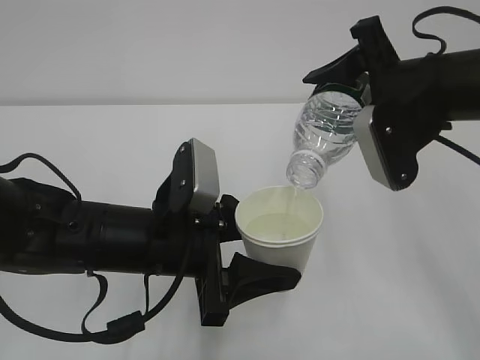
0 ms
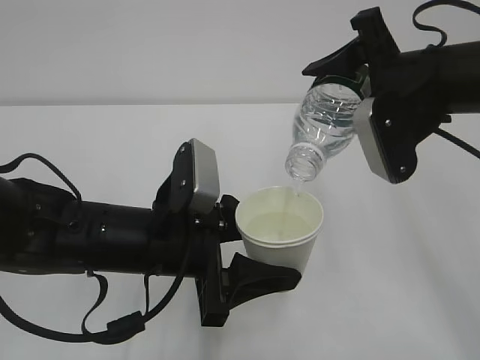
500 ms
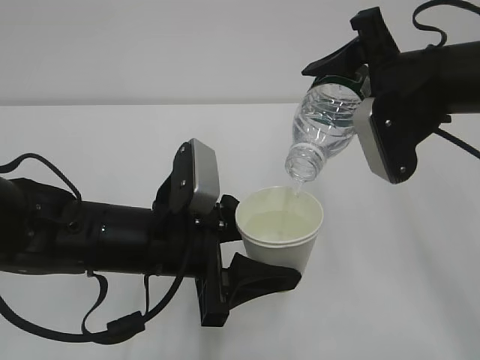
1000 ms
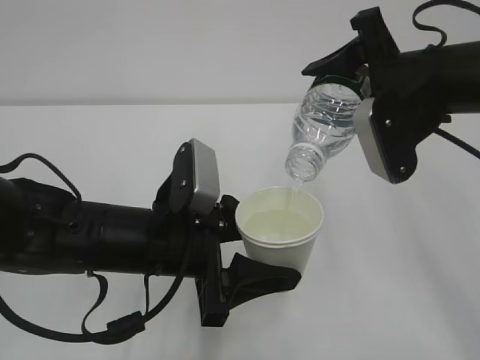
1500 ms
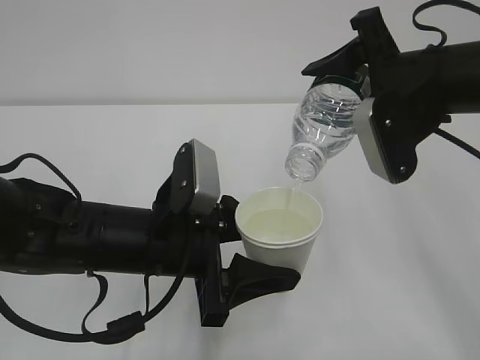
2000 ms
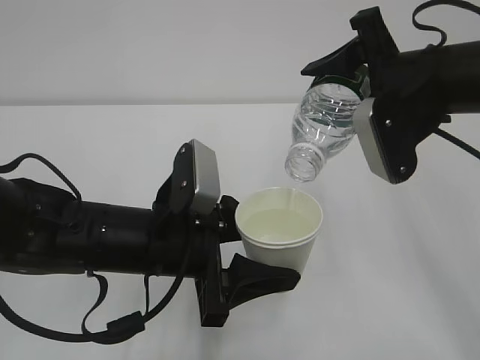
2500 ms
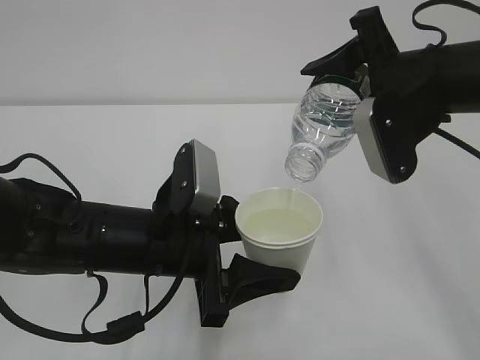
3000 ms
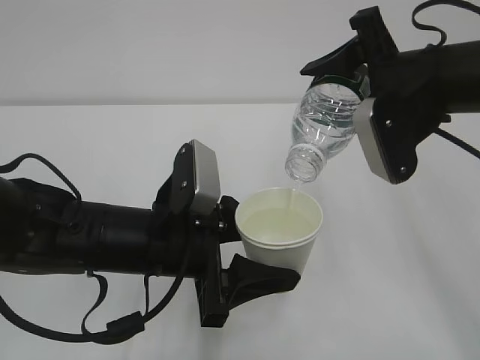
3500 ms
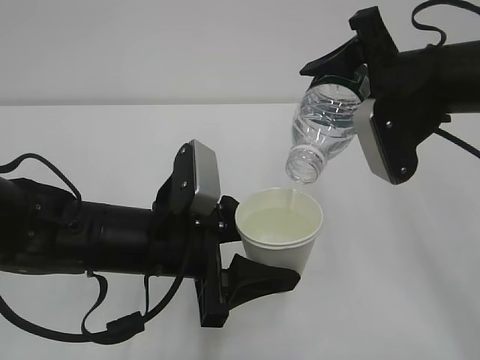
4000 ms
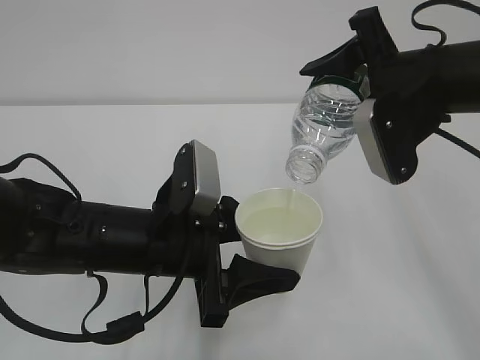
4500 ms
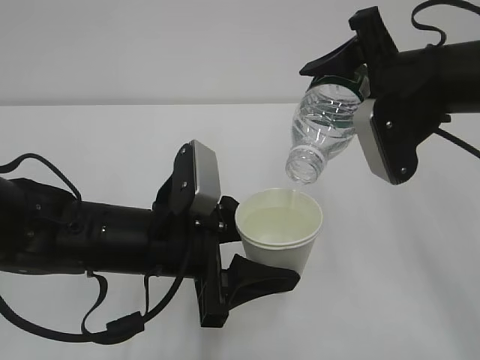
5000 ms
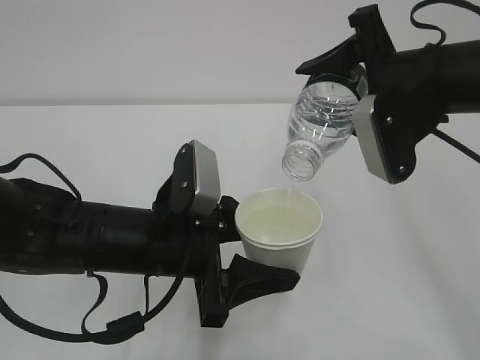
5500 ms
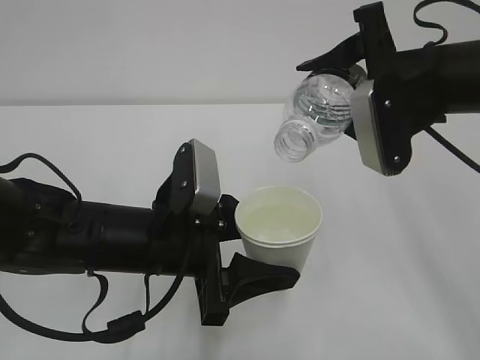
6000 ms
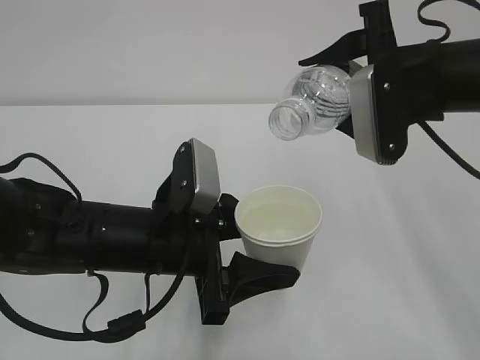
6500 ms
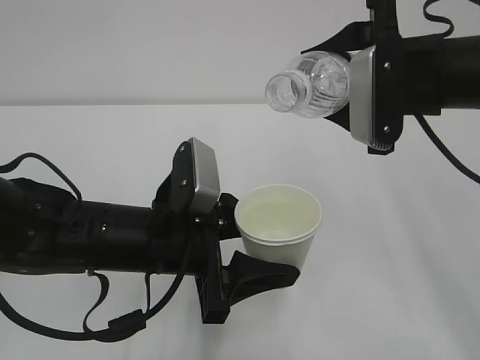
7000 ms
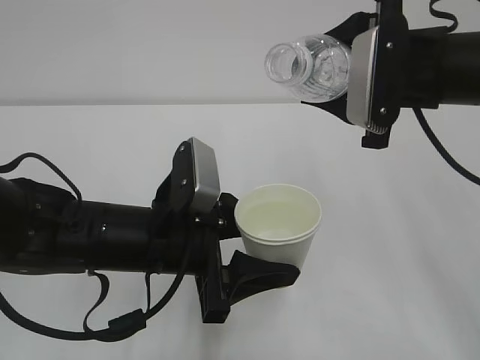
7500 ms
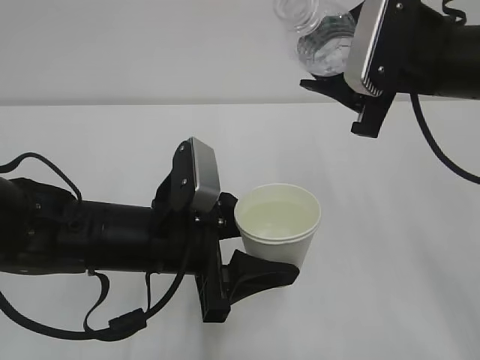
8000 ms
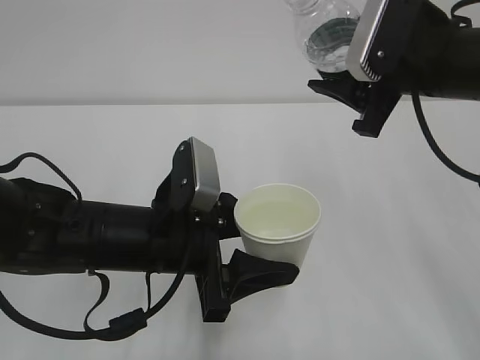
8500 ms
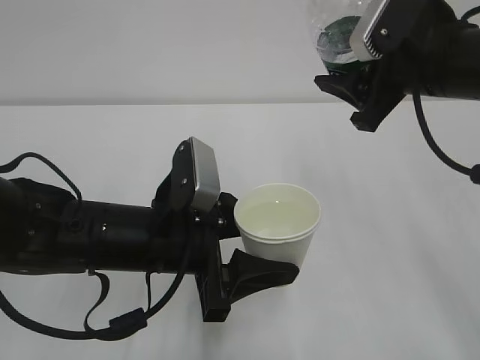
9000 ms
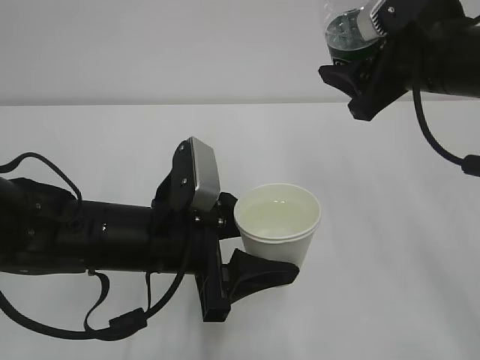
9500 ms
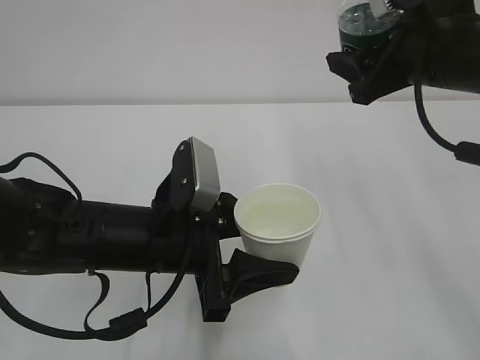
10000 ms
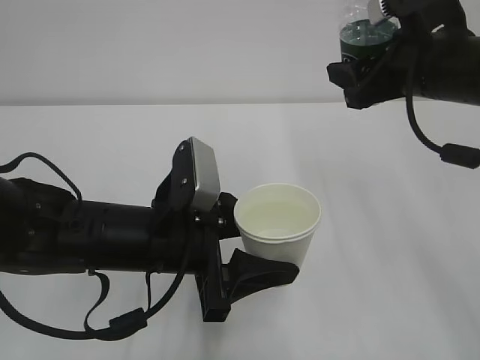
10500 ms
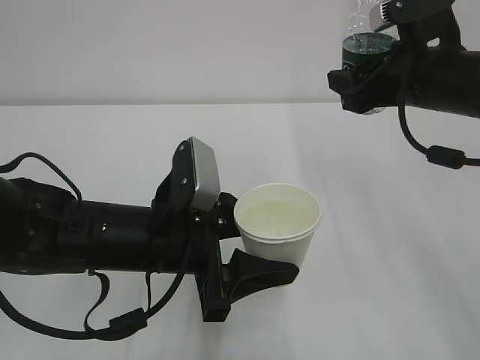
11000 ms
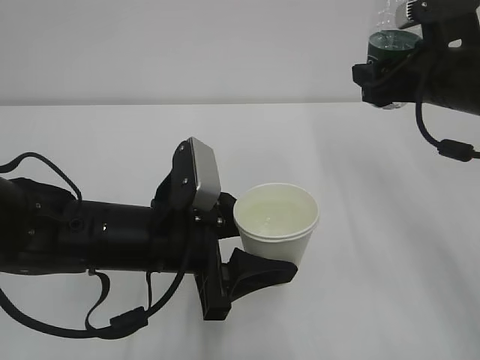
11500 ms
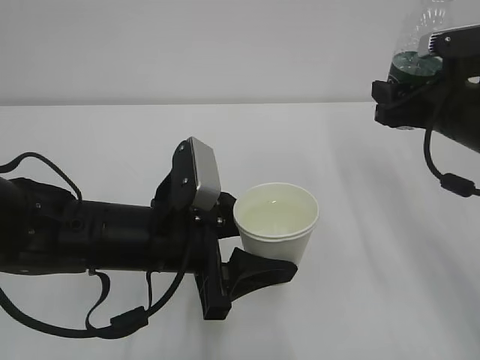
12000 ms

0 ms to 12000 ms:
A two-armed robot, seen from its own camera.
0 ms to 4000 ms: Neither gripper changes place.
4000 ms to 6000 ms: There are only small adjustments of the grippers.
10000 ms to 12000 ms: The right gripper shifts approximately 5 cm downward.

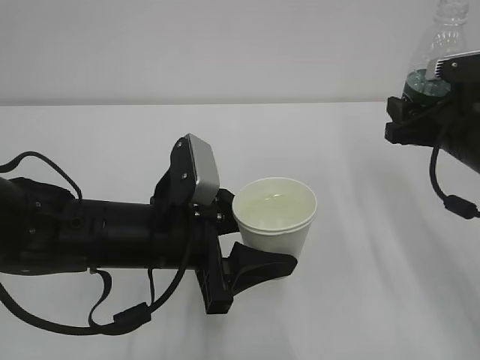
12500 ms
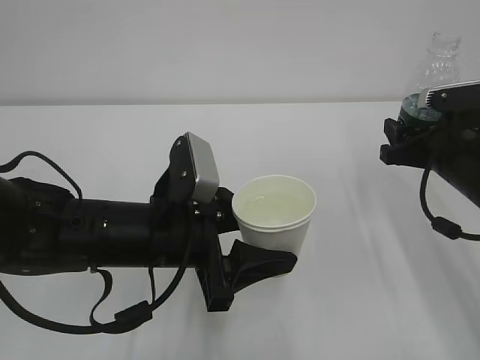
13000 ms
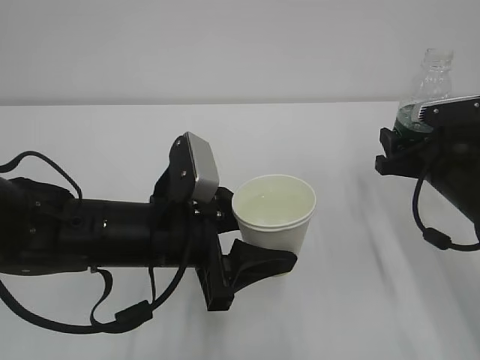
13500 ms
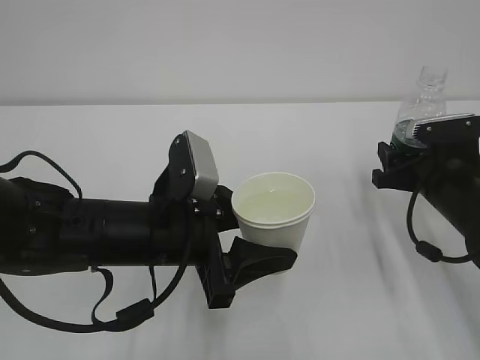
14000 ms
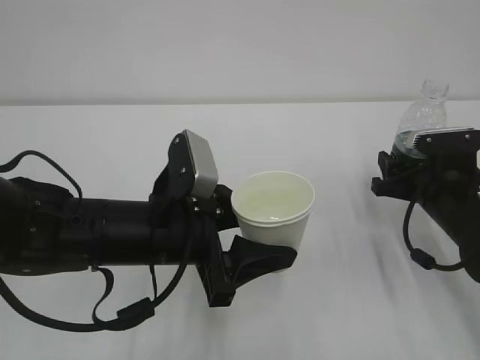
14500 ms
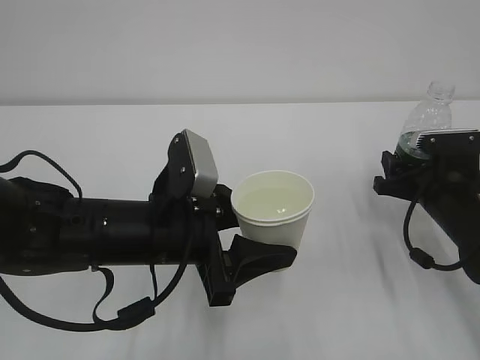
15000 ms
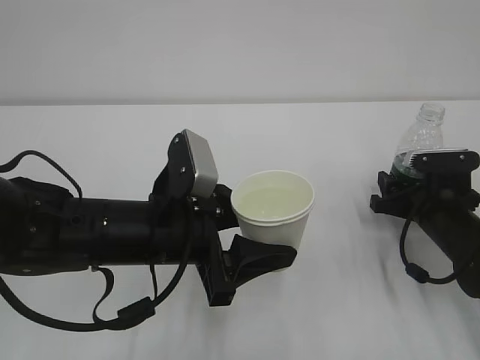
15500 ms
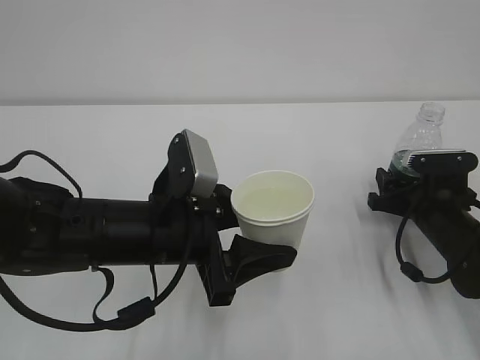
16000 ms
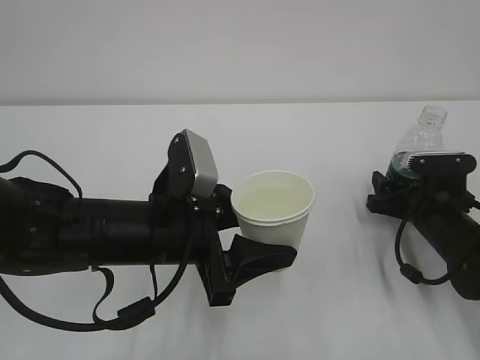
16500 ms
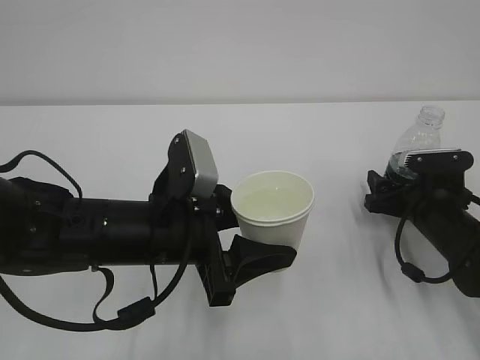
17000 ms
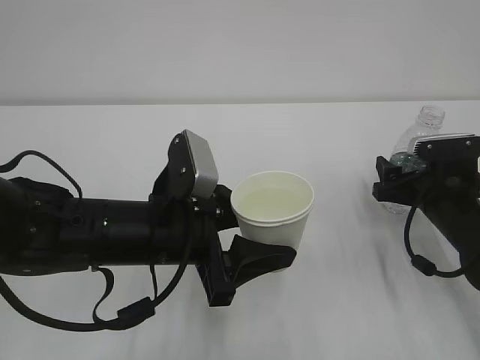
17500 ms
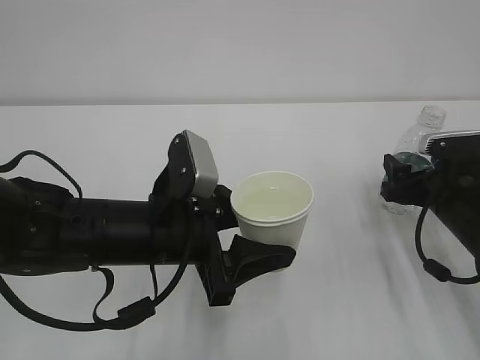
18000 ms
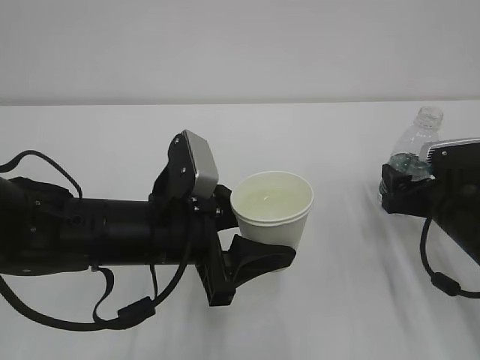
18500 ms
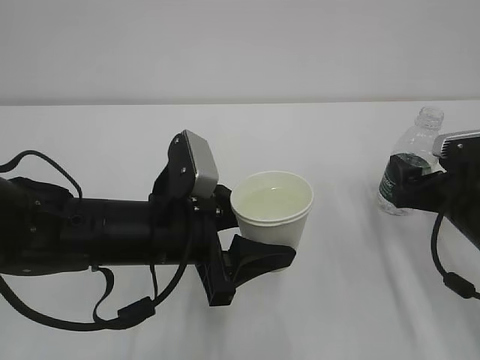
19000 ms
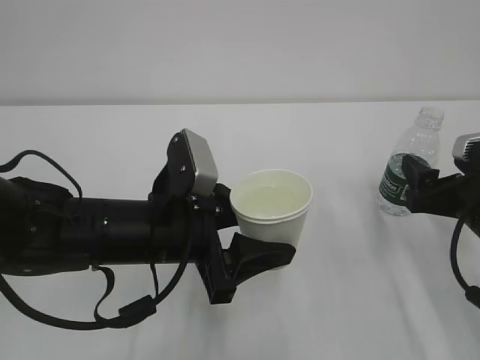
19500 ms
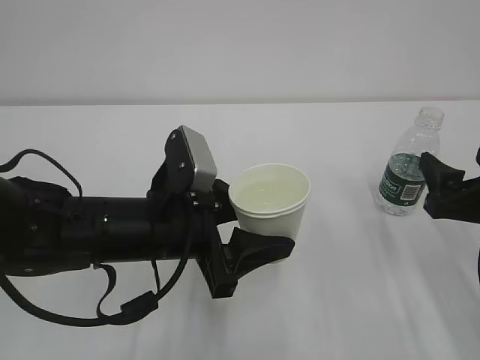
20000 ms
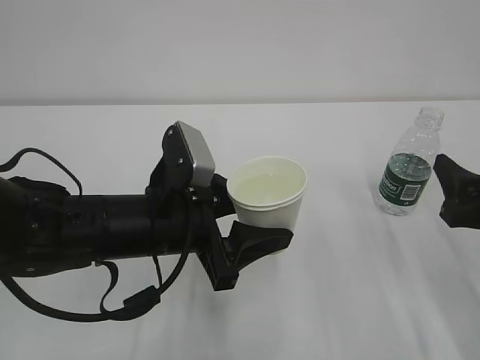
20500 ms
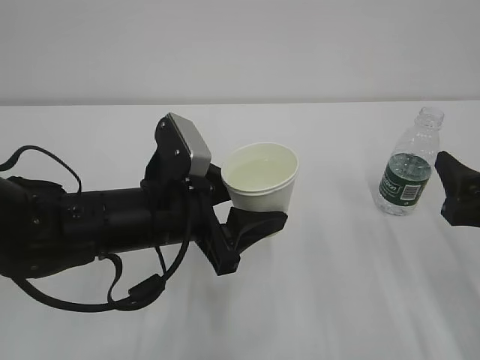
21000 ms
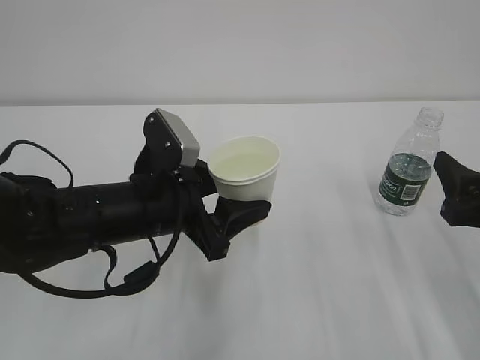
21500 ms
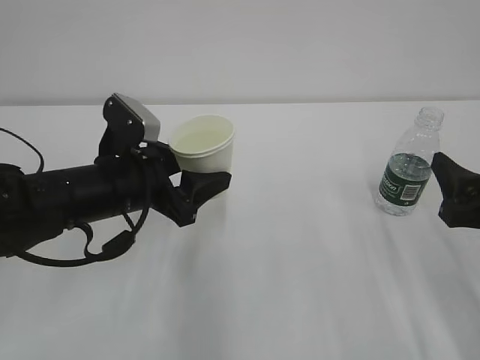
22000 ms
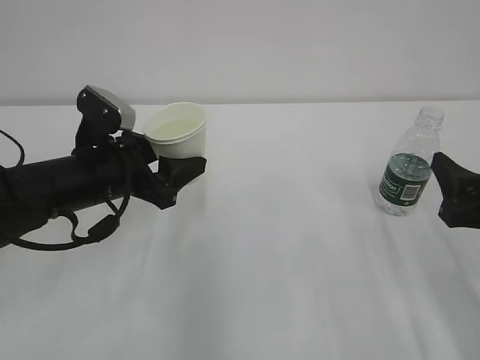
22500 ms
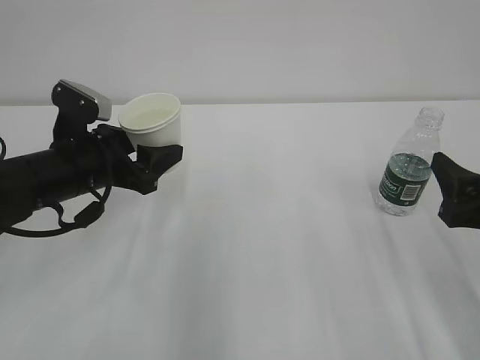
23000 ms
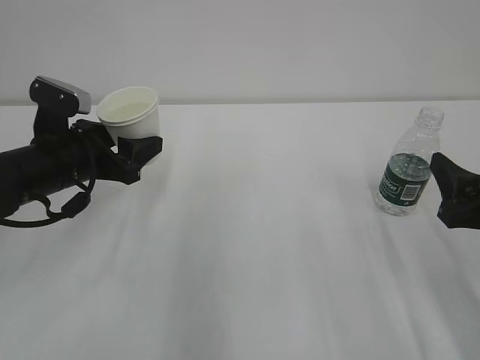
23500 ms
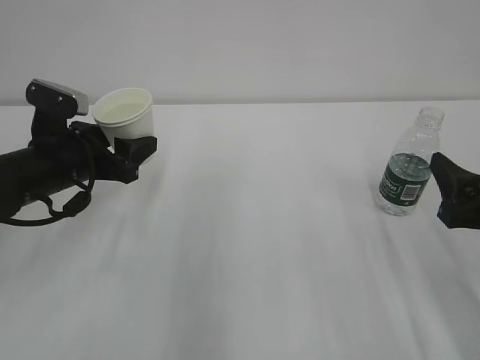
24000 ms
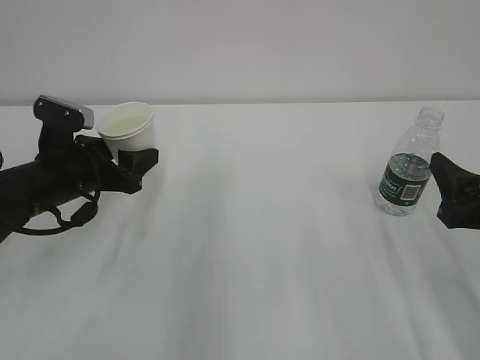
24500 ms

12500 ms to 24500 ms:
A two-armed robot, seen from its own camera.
12500 ms to 14500 ms: The right gripper moves downward, roughly 10 cm.
14500 ms to 16500 ms: The right gripper opens.
16500 ms to 18500 ms: The right gripper ends up about 5 cm from where it was.
18500 ms to 20500 ms: The right gripper shifts roughly 10 cm backward and upward.
20500 ms to 22500 ms: The left gripper heads to the left and forward, covering roughly 10 cm.
22500 ms to 24500 ms: The left gripper shifts about 5 cm to the left.

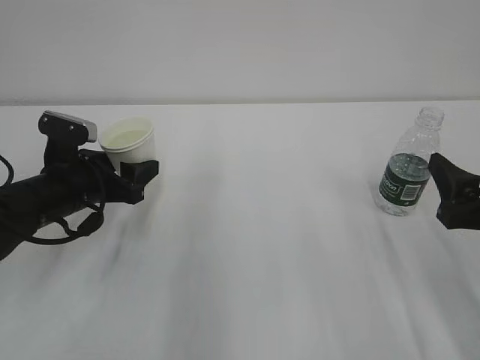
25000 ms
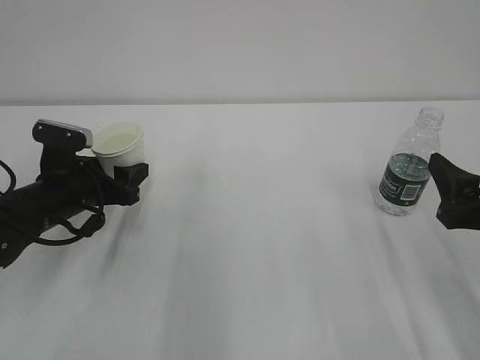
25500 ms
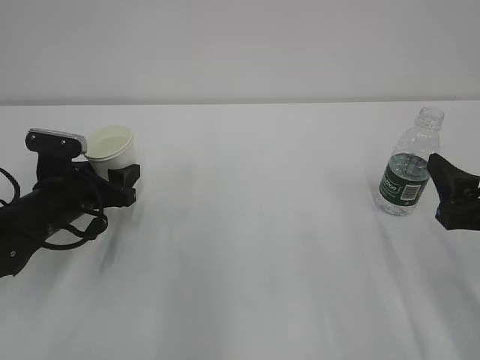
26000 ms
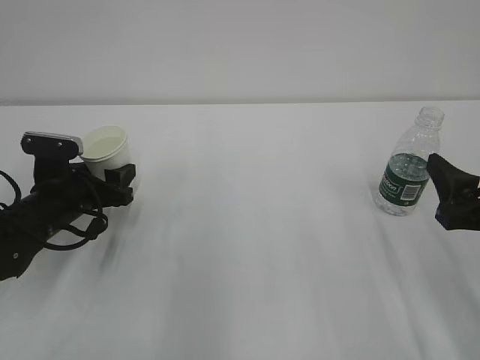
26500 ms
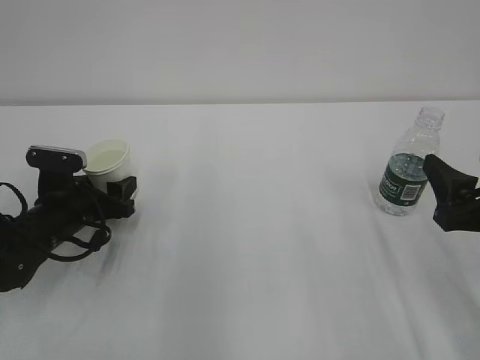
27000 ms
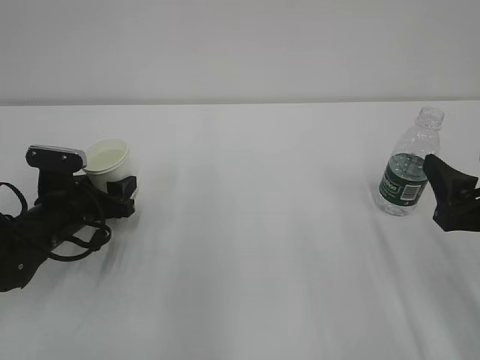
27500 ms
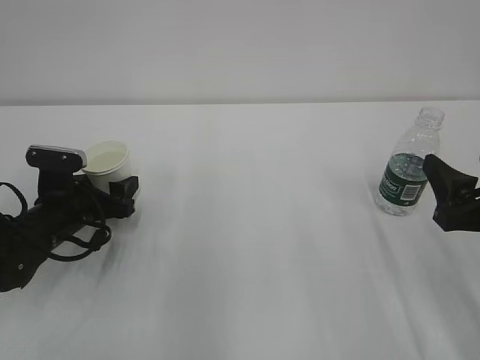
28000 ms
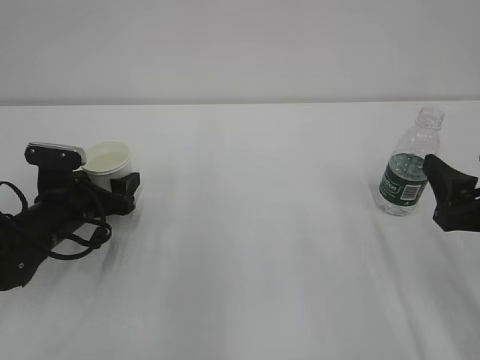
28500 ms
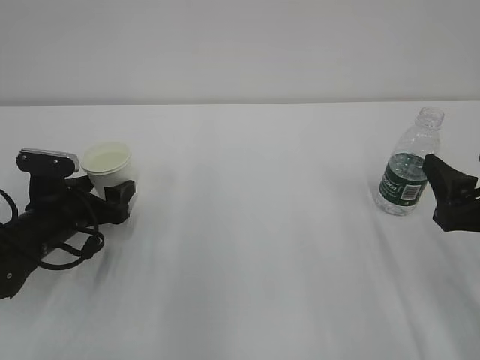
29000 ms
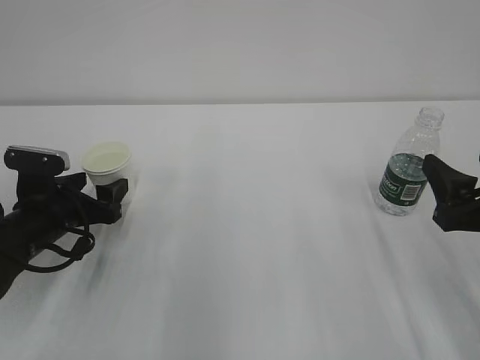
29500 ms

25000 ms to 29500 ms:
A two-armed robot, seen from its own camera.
25000 ms to 27000 ms: The left gripper travels downward by some 5 cm.
27000 ms to 29500 ms: The left gripper opens up.
